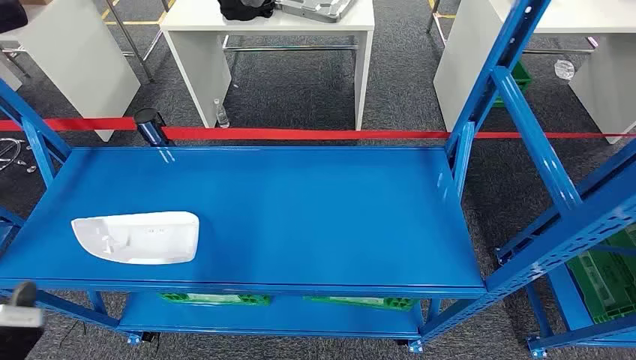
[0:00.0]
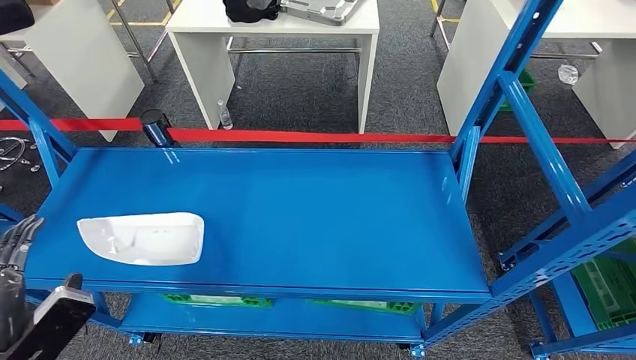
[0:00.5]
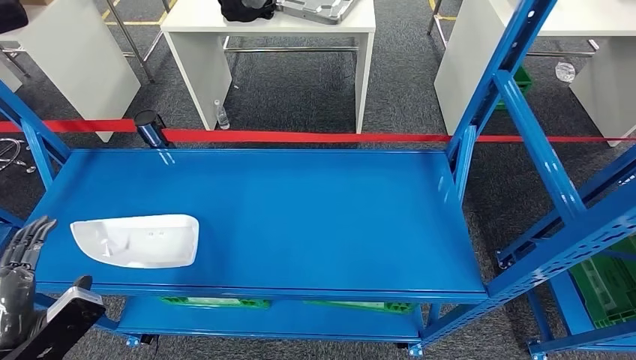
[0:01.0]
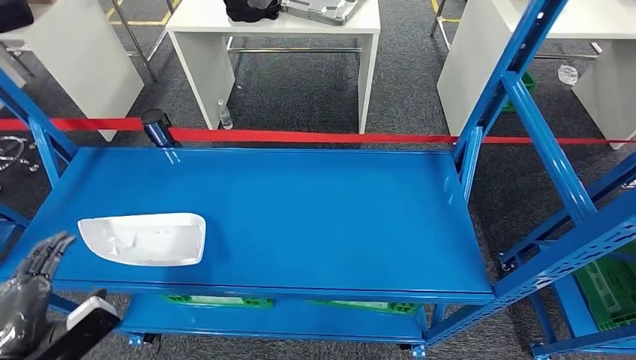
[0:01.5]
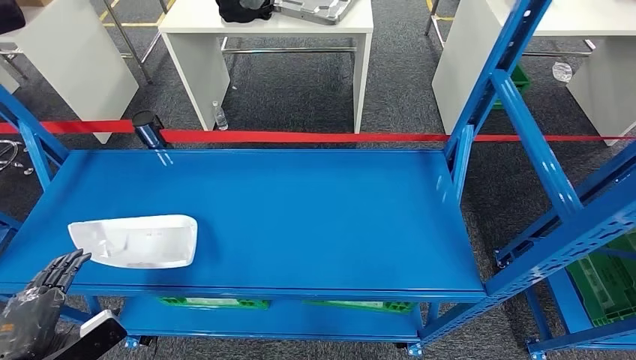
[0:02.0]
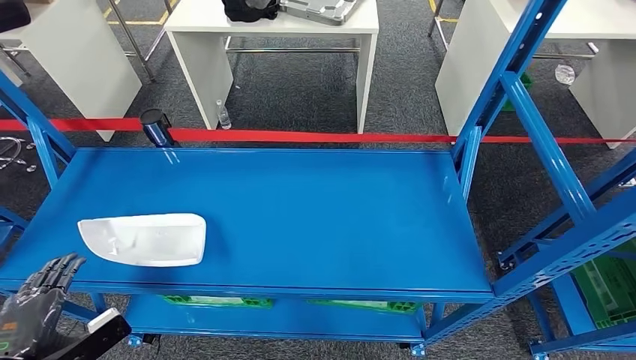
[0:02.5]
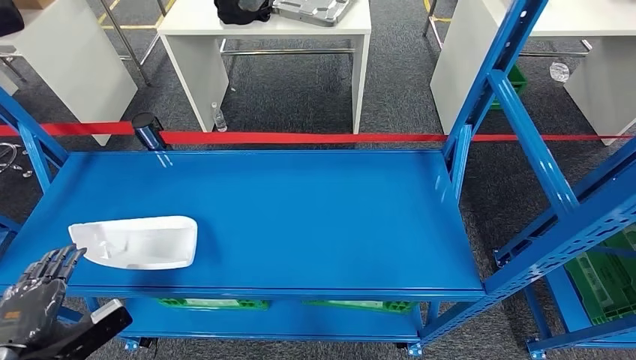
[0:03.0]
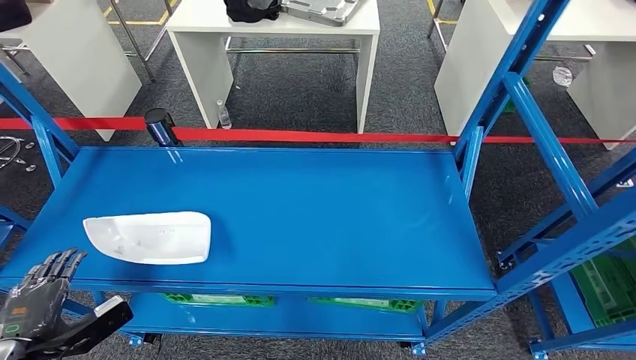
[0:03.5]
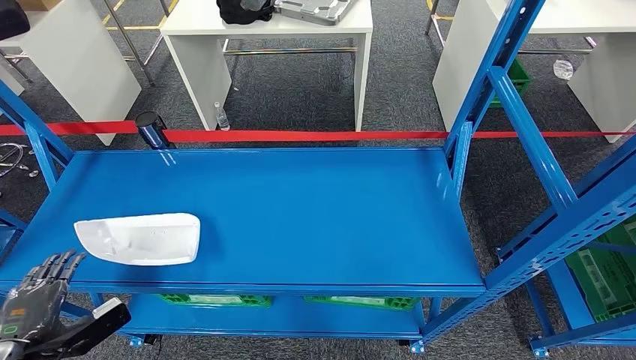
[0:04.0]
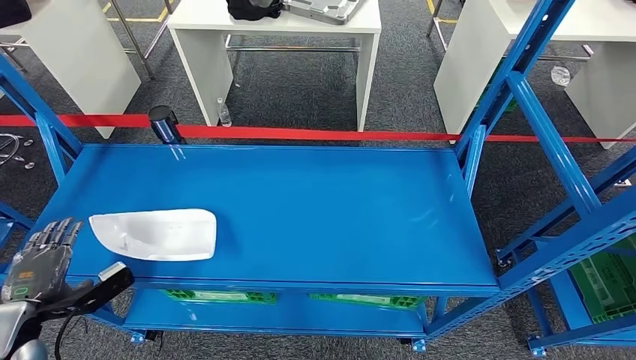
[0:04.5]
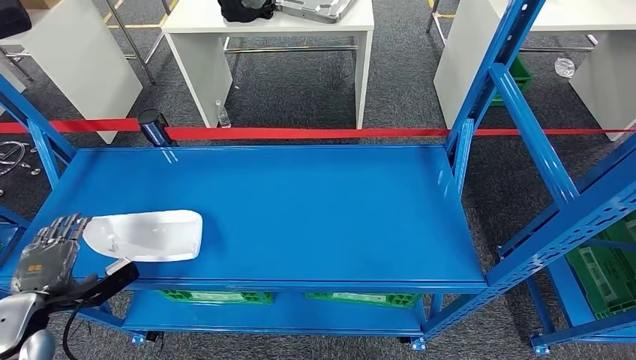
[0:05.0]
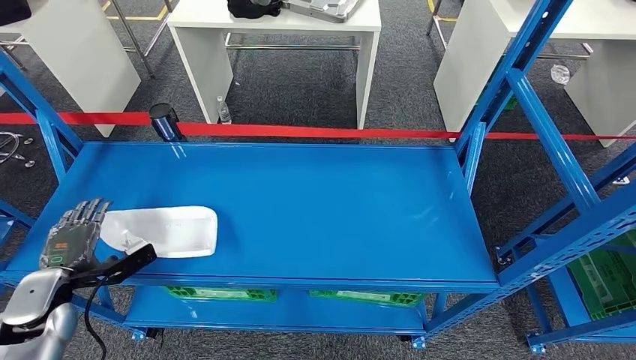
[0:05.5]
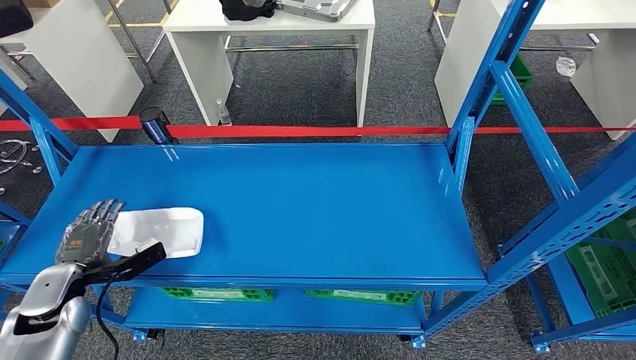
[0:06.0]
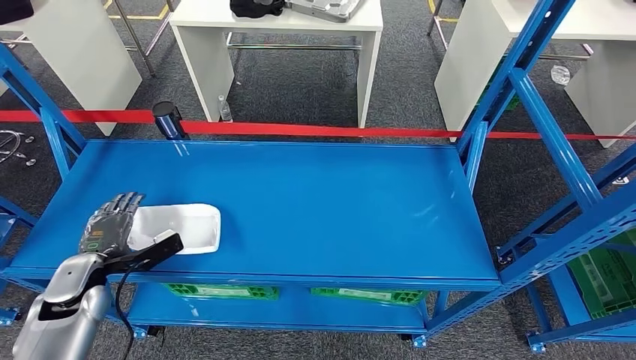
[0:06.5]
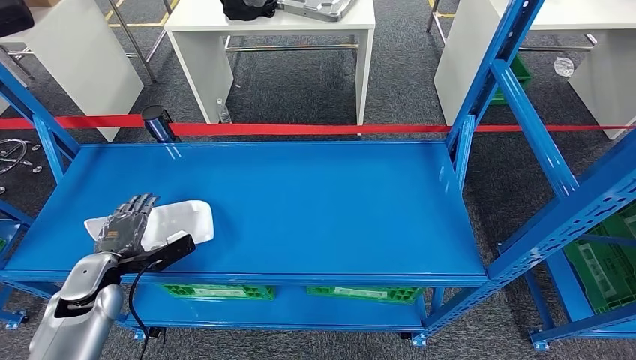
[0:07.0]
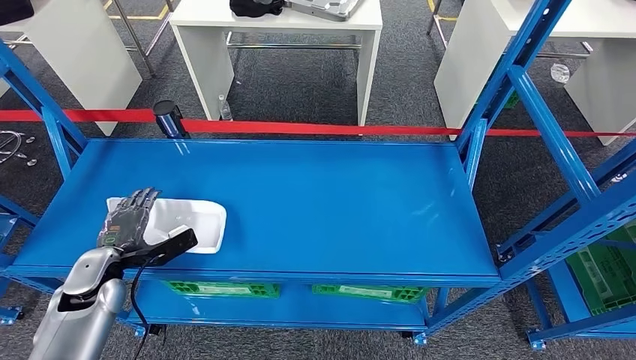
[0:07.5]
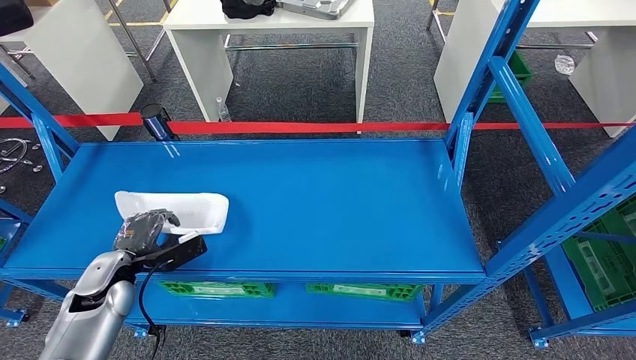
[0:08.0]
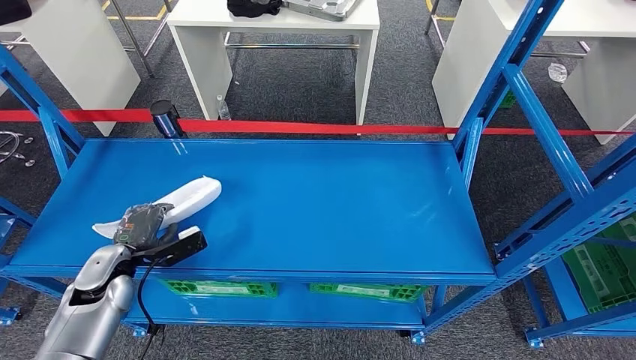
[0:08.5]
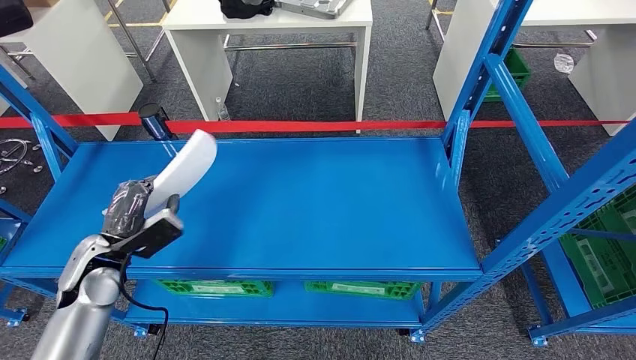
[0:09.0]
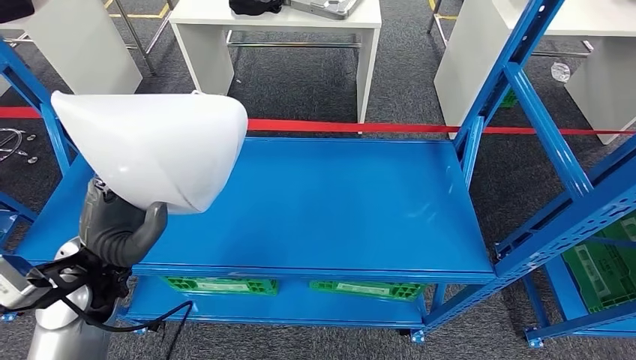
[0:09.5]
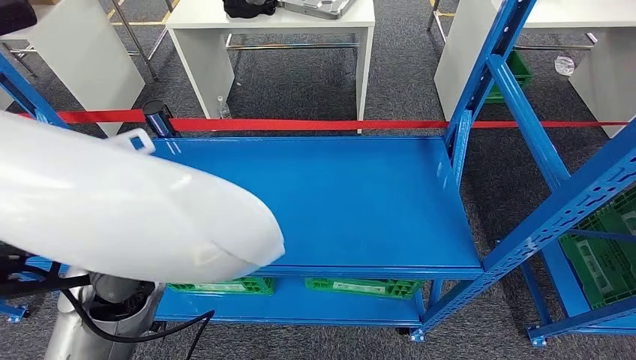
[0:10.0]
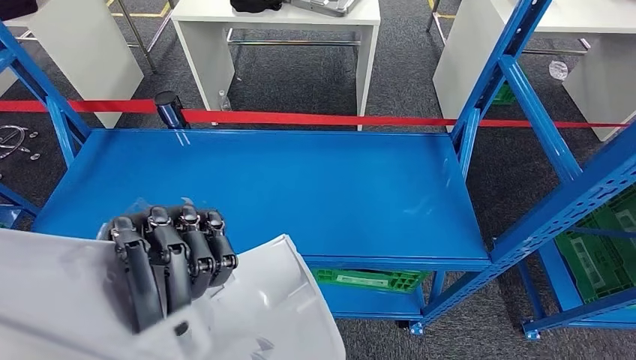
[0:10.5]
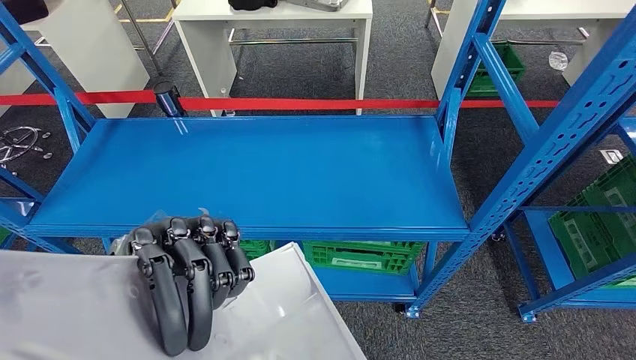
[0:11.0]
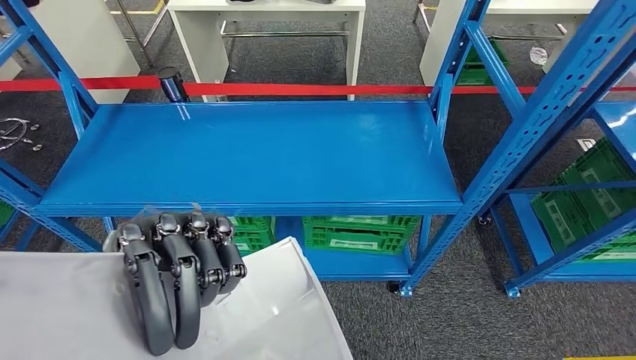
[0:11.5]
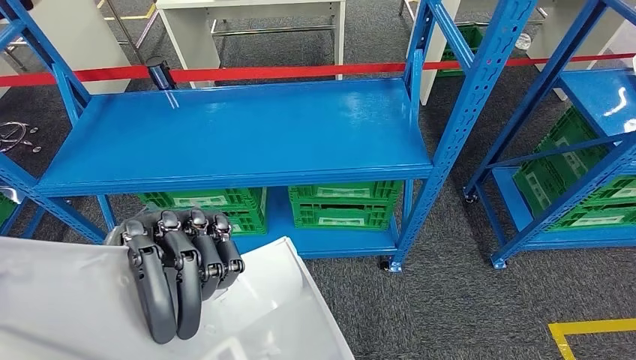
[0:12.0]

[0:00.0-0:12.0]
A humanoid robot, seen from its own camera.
Step, 0:00.0 to 0:09.5: Take small components from the rack.
0:02.0 to 0:04.0: The left hand moves roughly 5 cm.
0:06.0 to 0:08.0: The left hand moves to the right, approximately 5 cm.

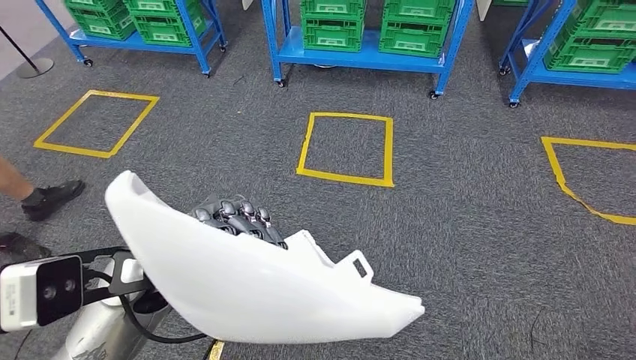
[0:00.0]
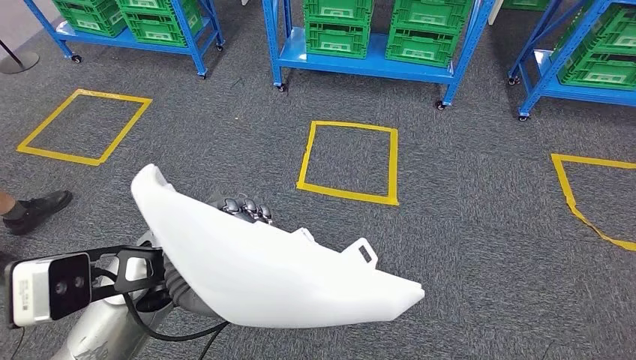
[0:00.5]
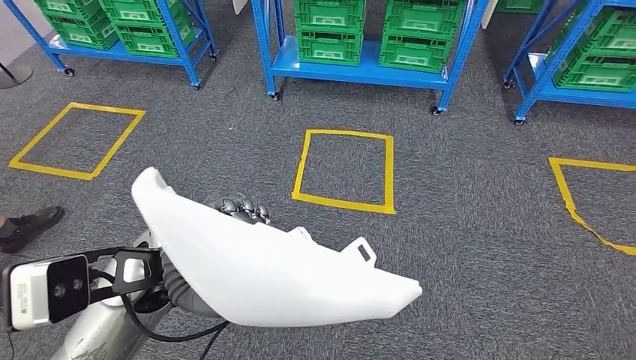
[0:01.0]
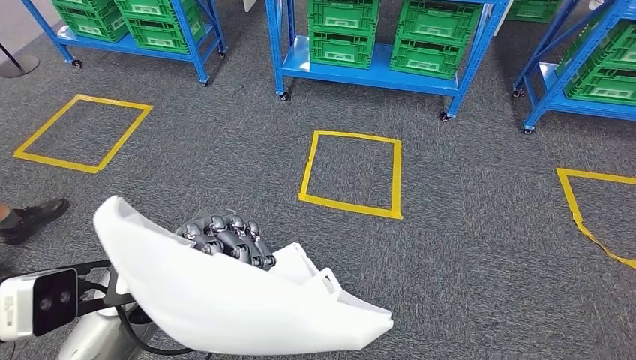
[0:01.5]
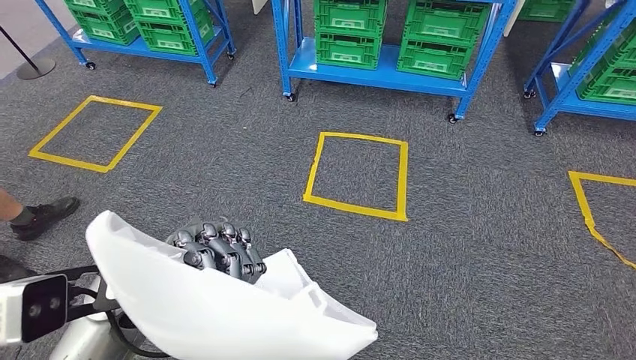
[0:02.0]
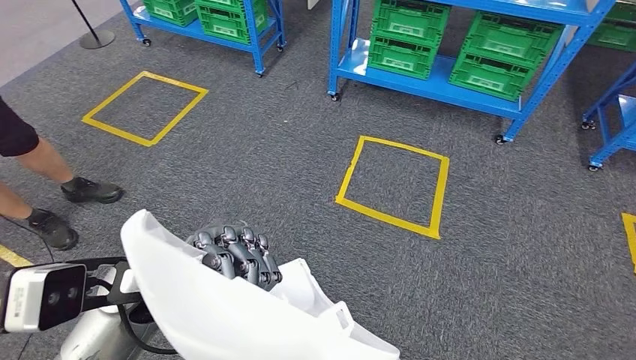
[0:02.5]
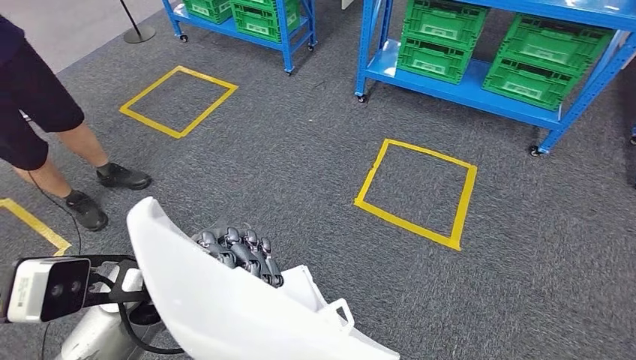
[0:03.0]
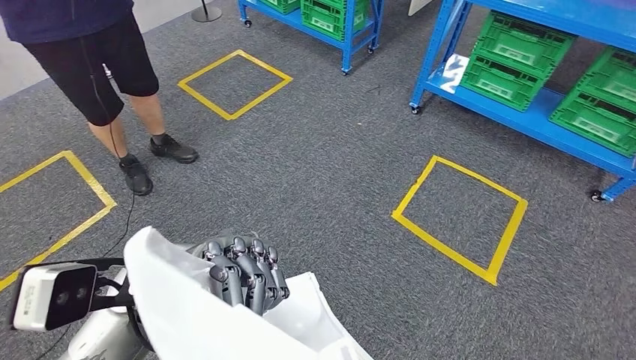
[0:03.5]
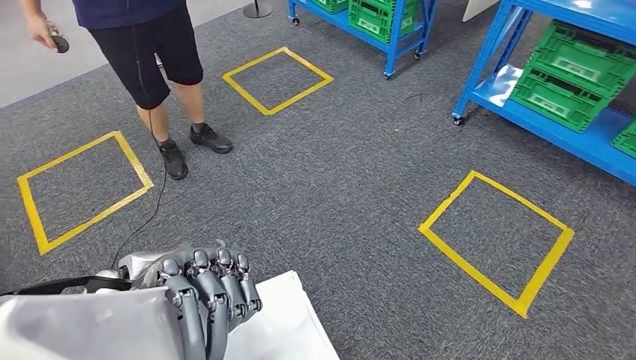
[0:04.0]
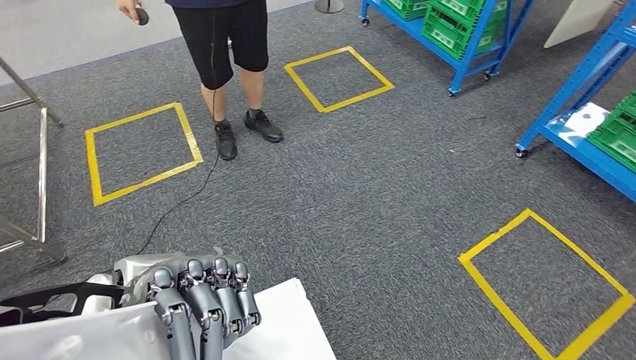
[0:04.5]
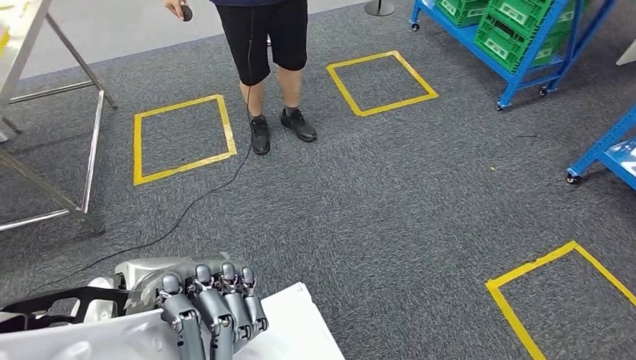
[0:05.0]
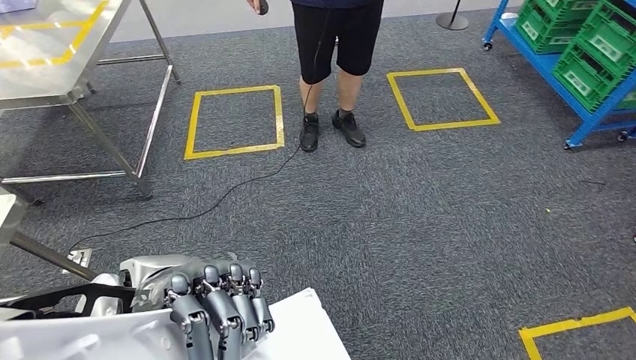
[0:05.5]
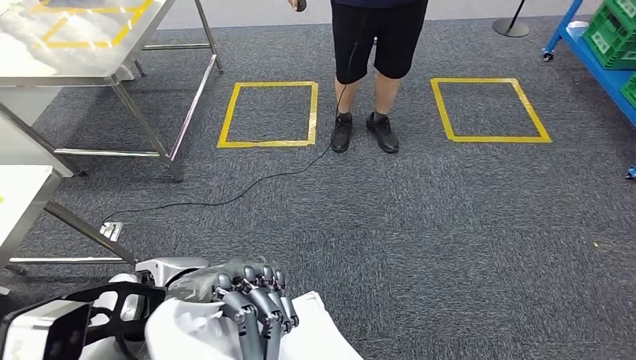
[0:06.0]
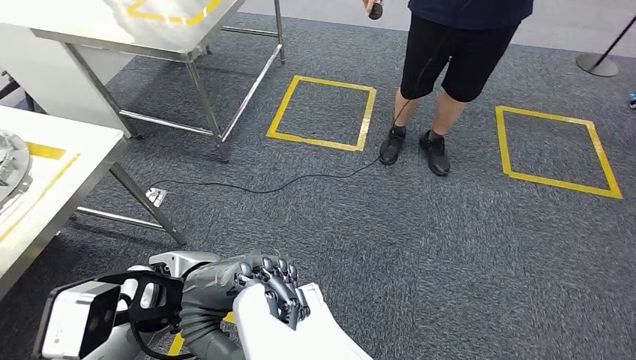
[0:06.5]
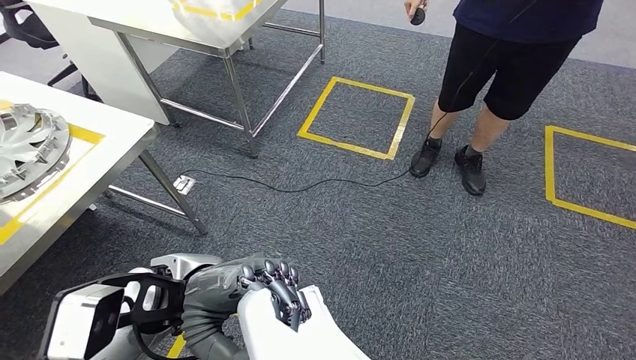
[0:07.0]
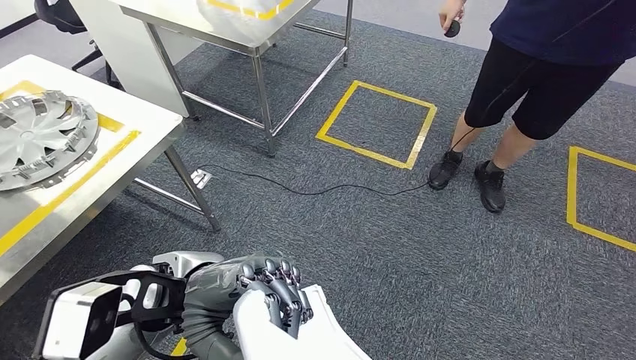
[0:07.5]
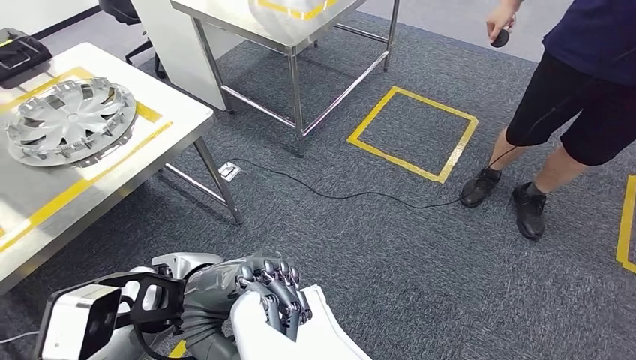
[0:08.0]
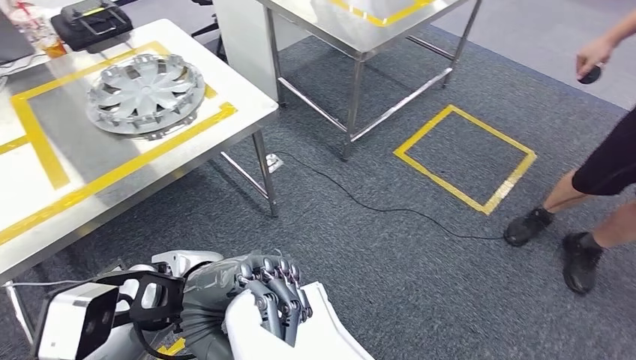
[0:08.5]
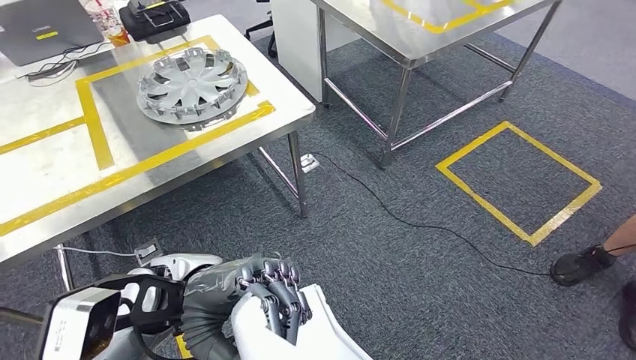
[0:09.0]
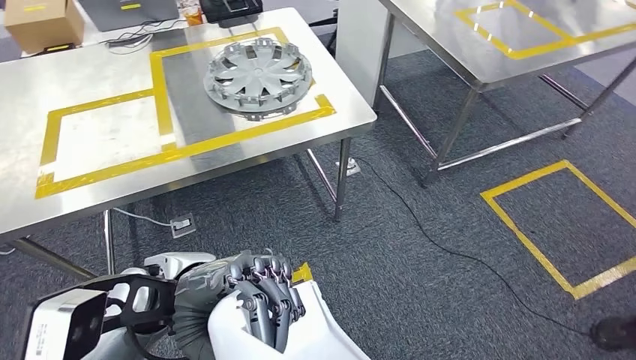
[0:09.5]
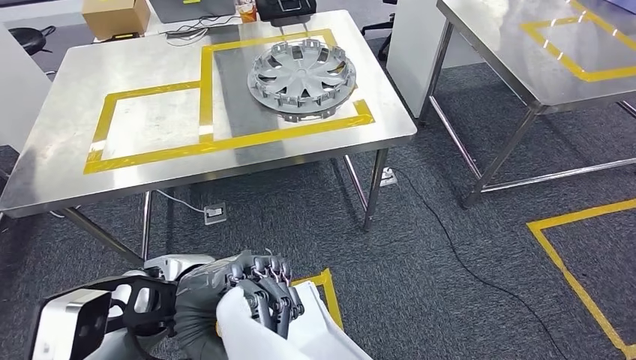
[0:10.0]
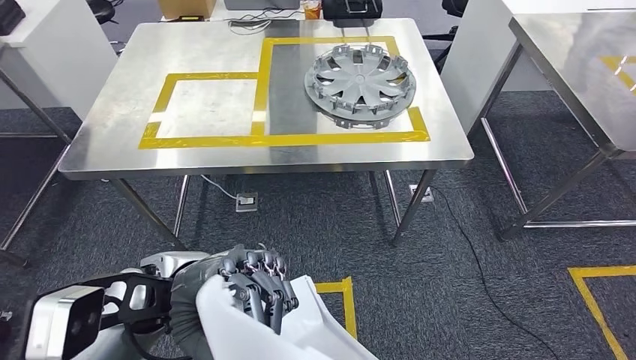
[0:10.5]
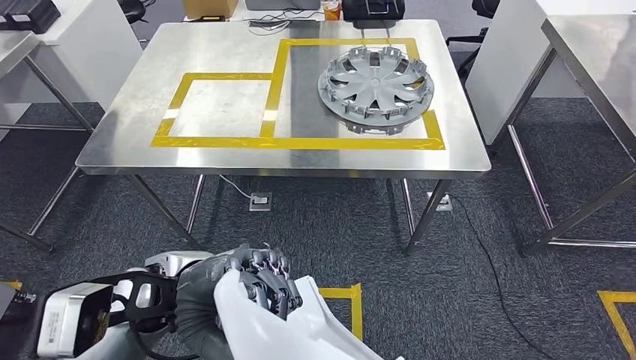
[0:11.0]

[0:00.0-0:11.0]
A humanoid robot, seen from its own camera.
Step, 0:00.0 to 0:07.5: Move the small parts to the workbench.
